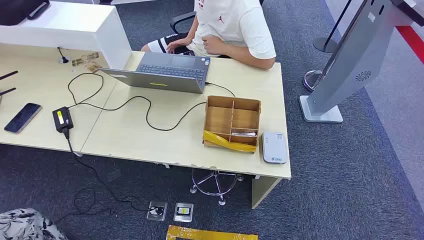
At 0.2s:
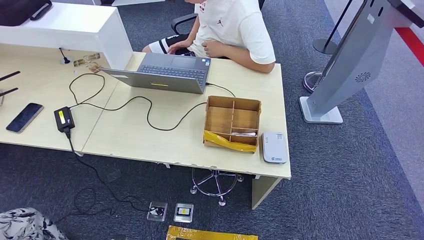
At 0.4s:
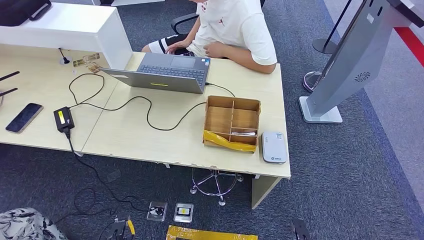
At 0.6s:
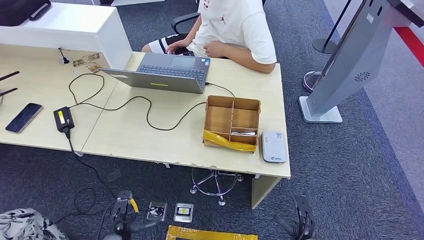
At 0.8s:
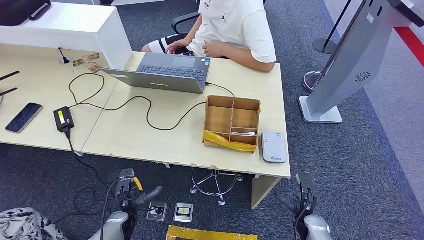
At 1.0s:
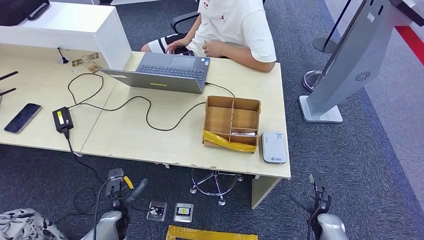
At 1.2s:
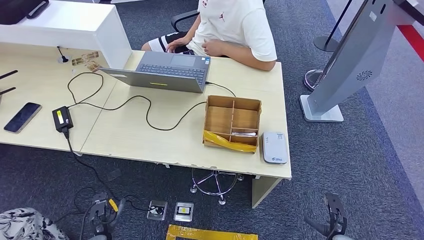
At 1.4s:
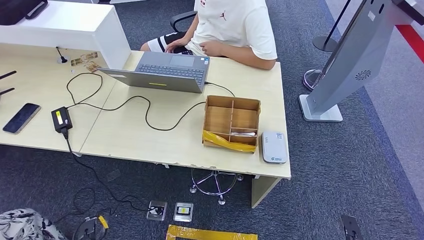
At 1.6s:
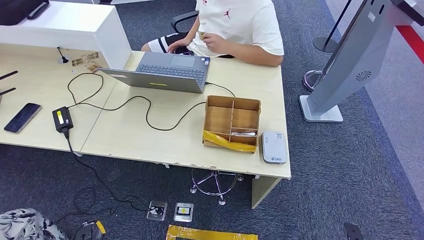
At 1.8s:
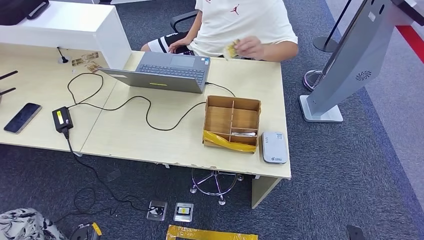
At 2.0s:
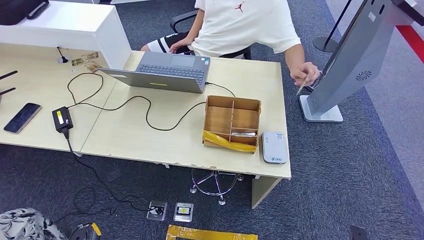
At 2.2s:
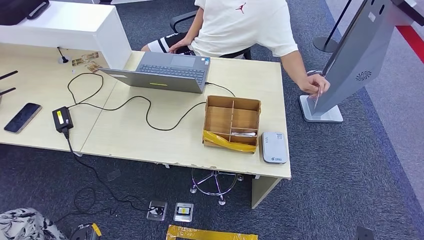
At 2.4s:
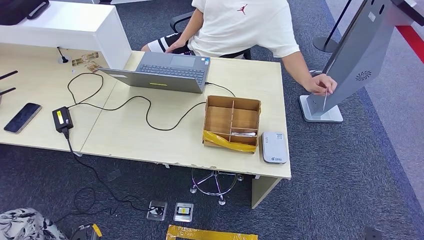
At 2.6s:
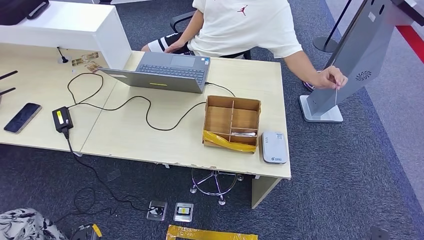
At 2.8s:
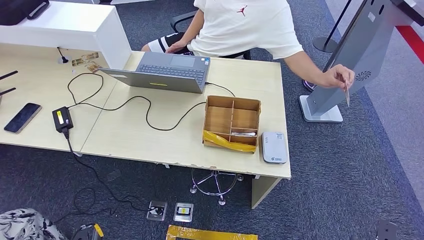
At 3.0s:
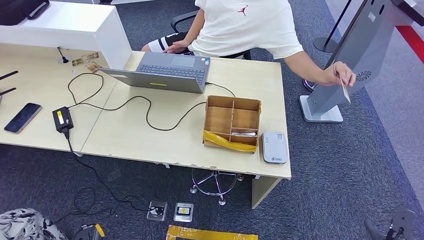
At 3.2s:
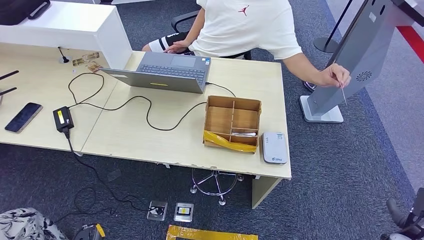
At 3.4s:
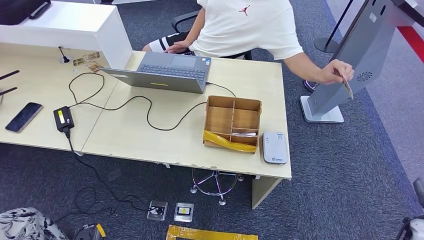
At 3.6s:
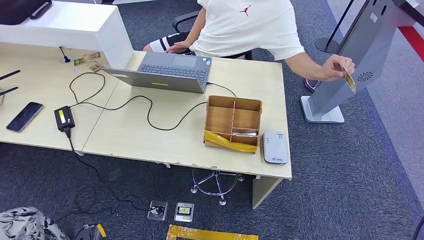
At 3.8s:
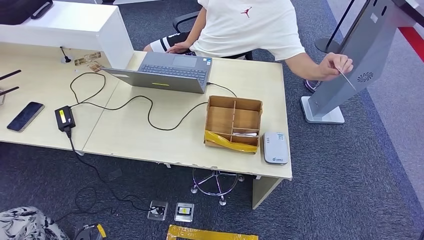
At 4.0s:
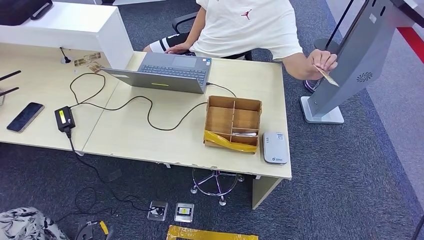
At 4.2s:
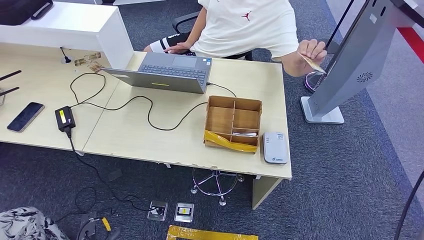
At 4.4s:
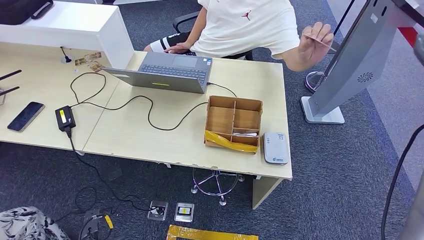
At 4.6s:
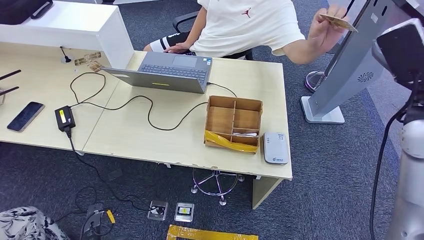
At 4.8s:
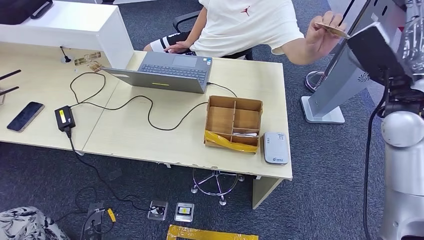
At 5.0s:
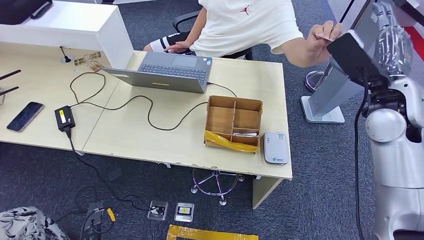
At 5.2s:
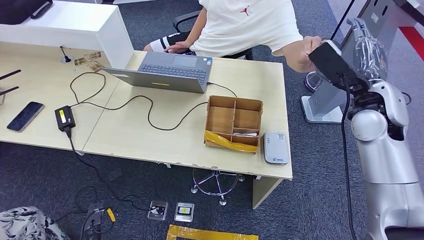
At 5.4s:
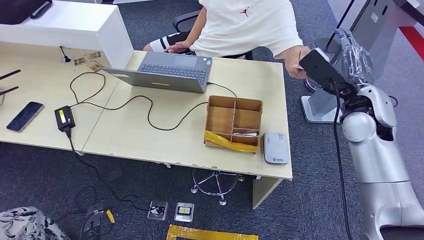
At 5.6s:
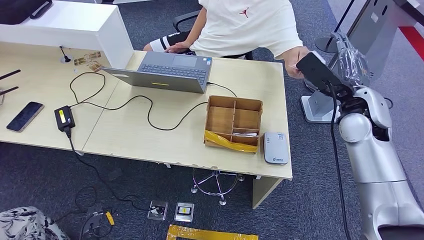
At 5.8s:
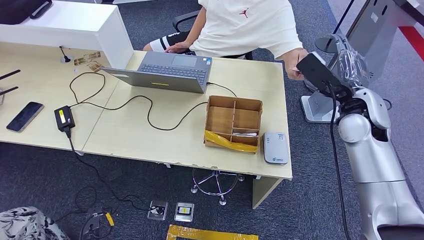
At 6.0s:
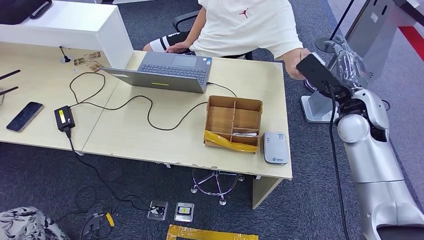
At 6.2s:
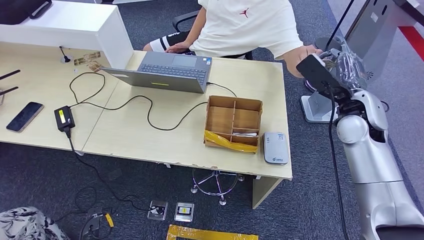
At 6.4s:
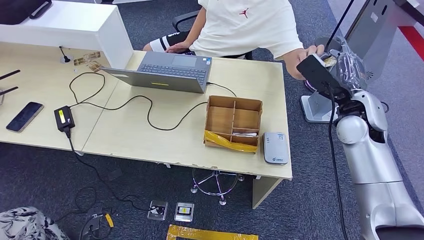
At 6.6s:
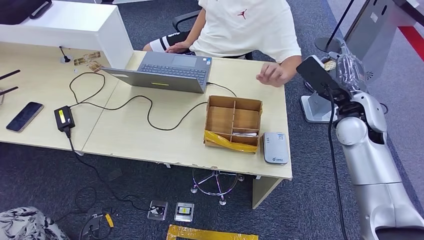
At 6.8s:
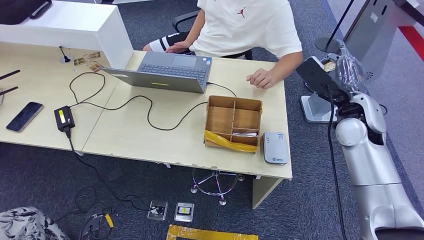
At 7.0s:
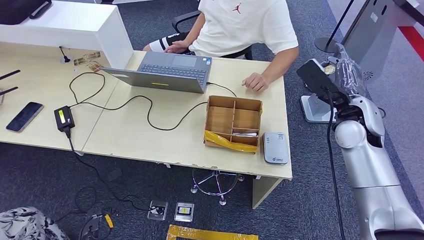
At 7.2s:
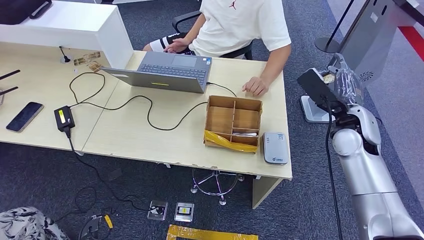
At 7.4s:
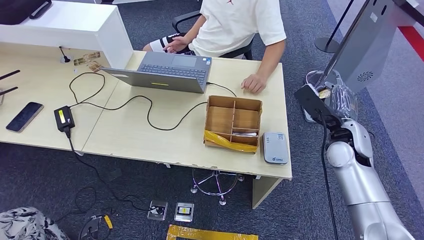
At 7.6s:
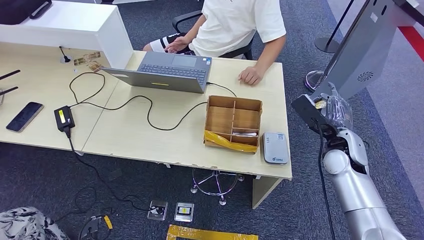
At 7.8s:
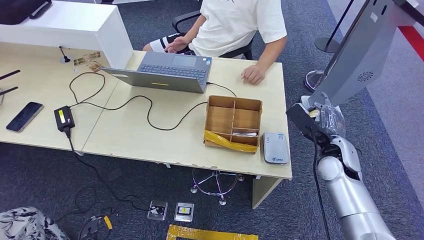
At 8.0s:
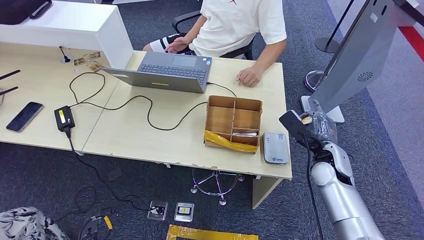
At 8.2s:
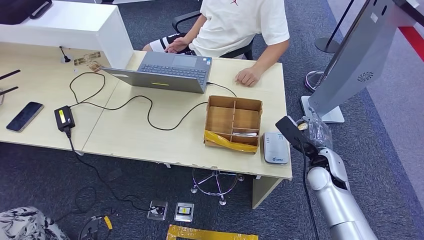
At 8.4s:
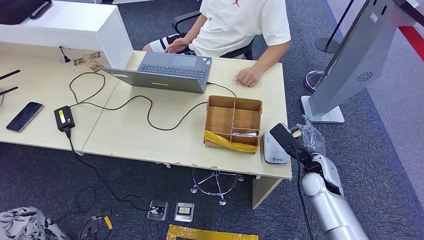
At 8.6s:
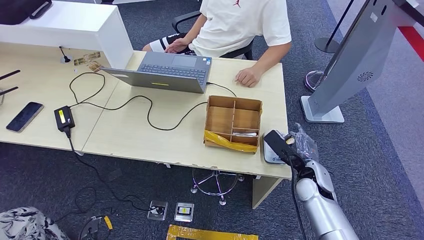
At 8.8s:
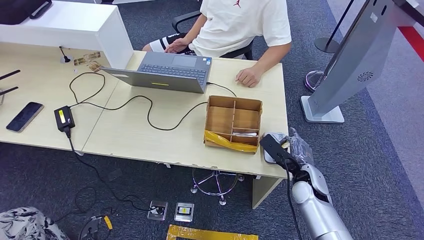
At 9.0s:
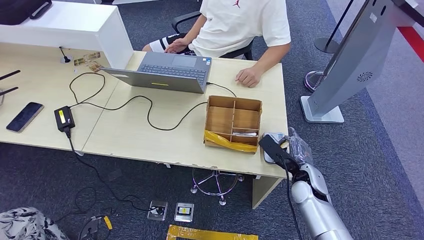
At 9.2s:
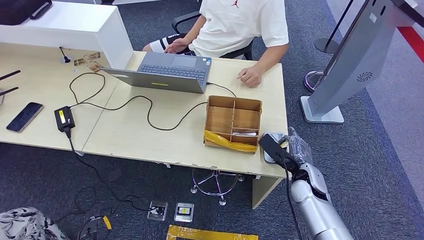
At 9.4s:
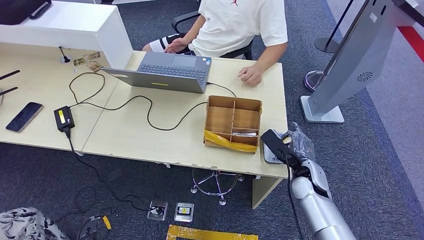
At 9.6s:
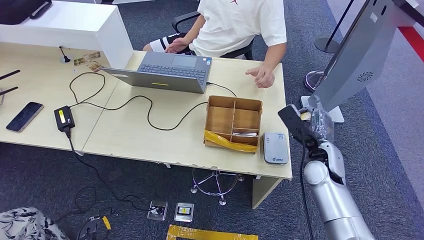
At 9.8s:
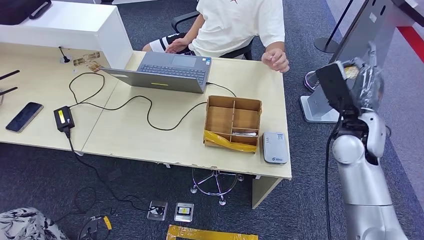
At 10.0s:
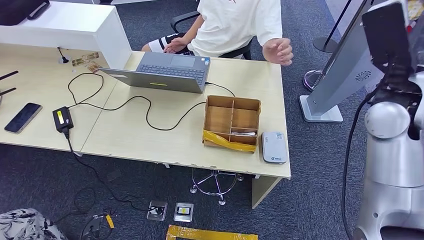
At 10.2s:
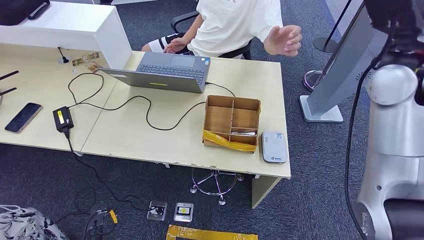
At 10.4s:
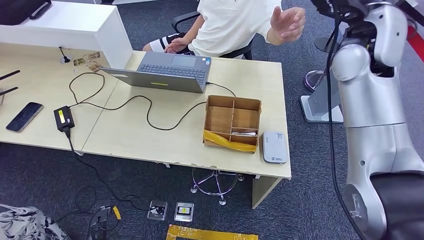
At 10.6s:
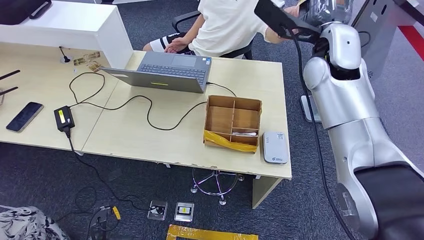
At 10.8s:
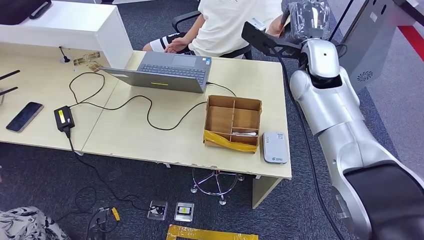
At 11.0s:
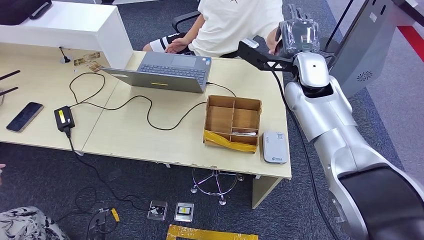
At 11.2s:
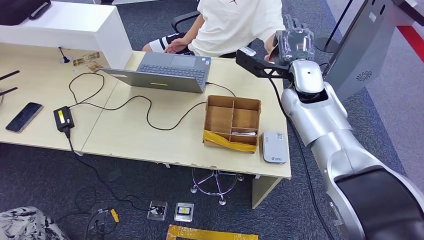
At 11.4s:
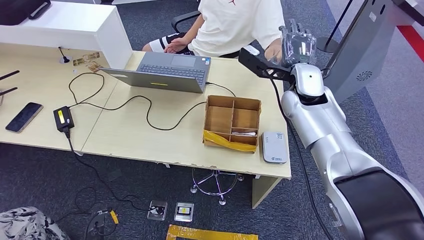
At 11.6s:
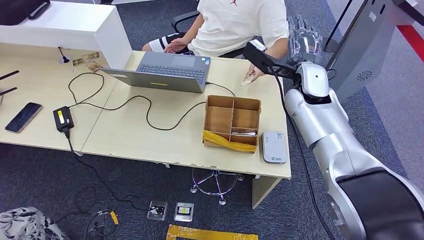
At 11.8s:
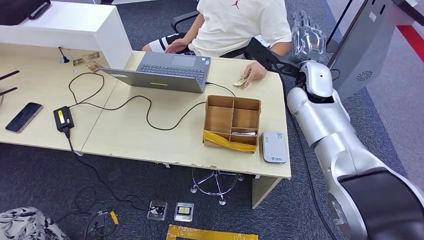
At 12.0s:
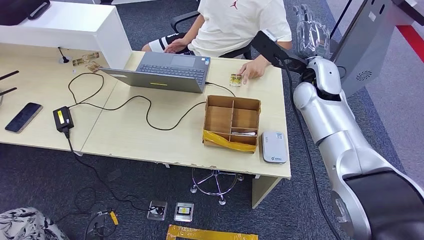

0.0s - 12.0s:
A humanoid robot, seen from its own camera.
Step, 0.0s - 7.6s: Take the ID card from the person's hand.
Step, 8.0s - 10.2s: Place the ID card on the card reader.
1.6s - 3.0s: The right hand changes place by about 5 cm.
3.0s - 4.4s: The right hand goes some 50 cm upward and forward.
4.4s - 6.0s: The right hand shifts approximately 15 cm downward, forward and to the left.
6.0s - 7.6s: The right hand shifts about 10 cm downward.
7.6s - 9.0s: The right hand travels downward, backward and to the left by some 15 cm.

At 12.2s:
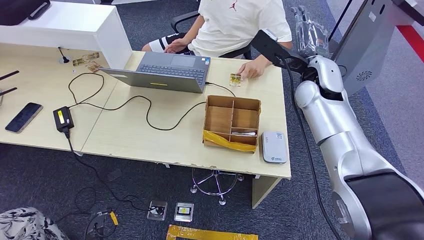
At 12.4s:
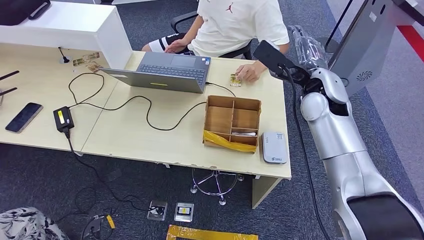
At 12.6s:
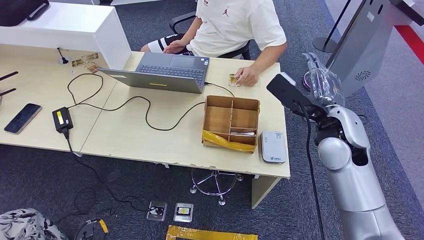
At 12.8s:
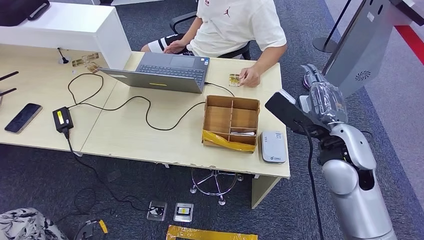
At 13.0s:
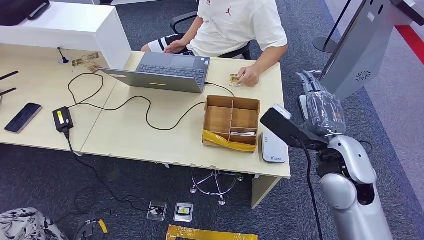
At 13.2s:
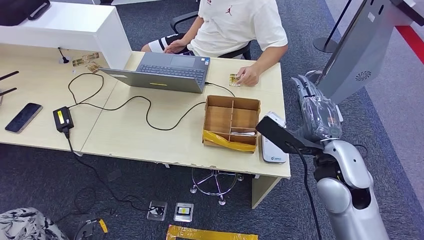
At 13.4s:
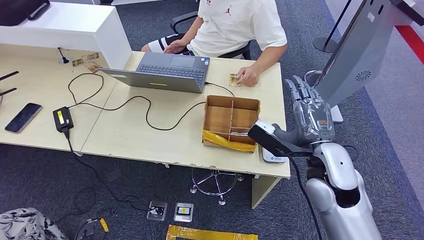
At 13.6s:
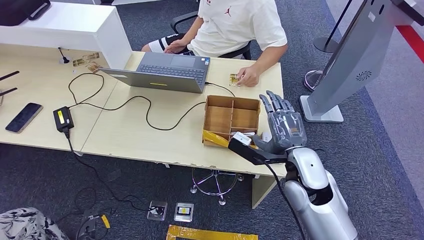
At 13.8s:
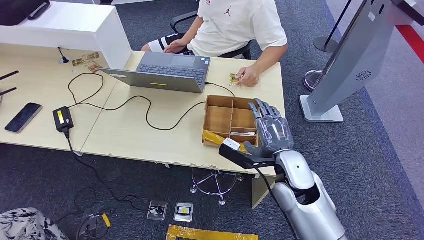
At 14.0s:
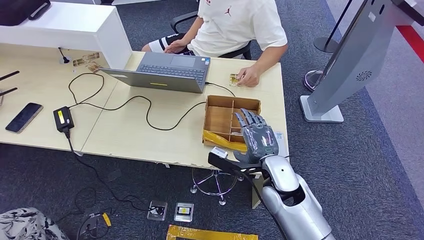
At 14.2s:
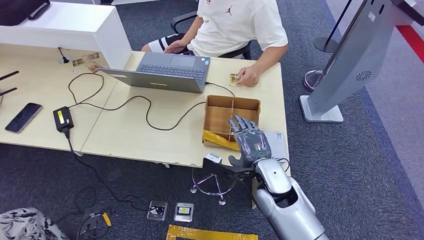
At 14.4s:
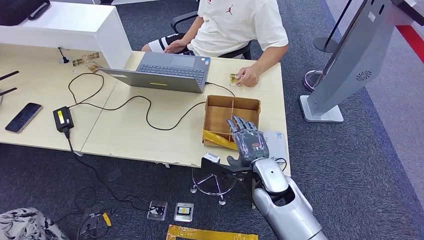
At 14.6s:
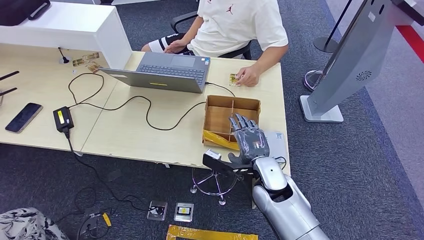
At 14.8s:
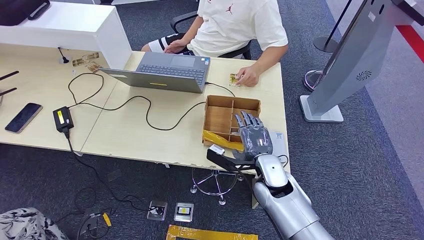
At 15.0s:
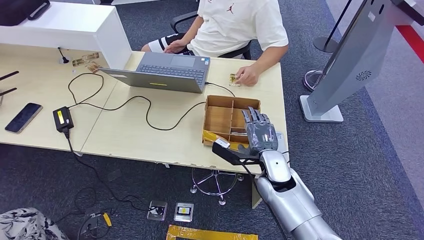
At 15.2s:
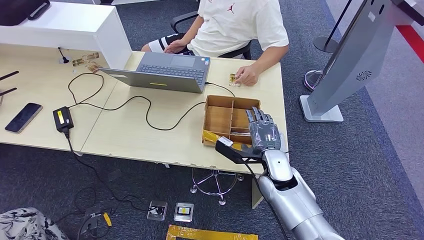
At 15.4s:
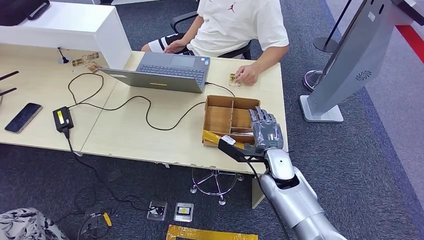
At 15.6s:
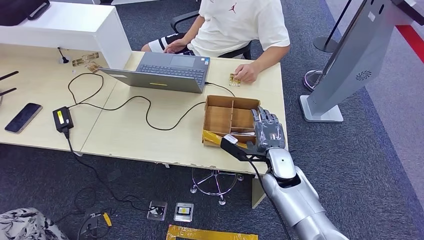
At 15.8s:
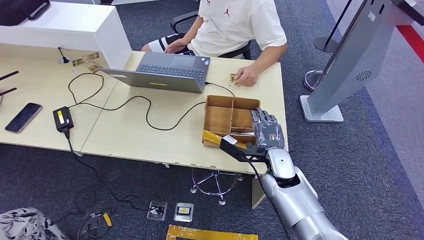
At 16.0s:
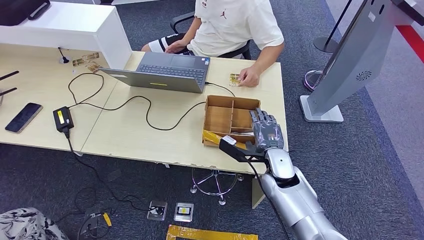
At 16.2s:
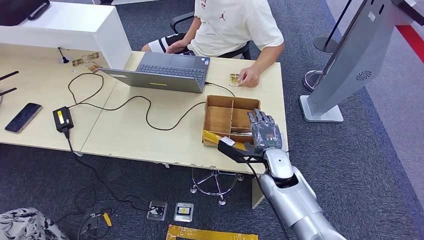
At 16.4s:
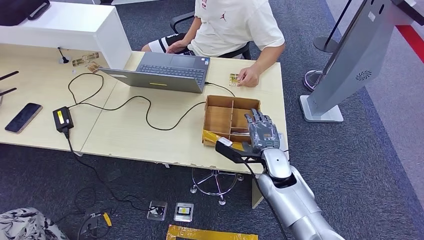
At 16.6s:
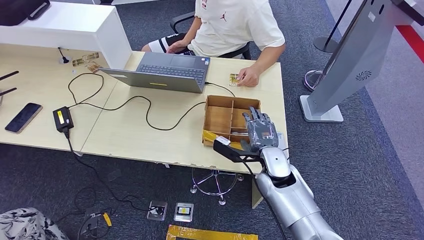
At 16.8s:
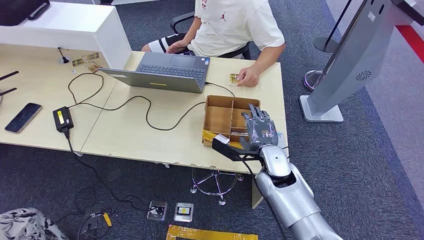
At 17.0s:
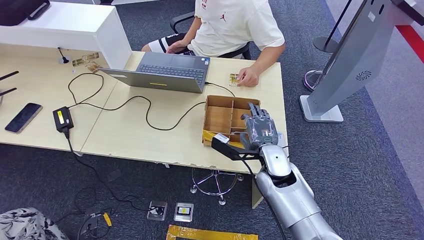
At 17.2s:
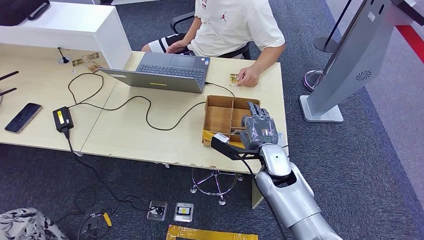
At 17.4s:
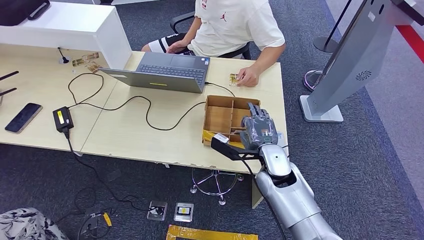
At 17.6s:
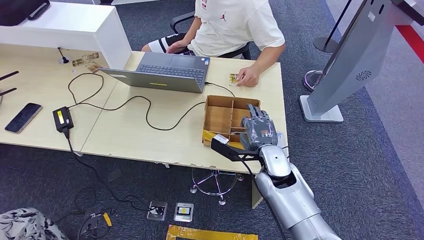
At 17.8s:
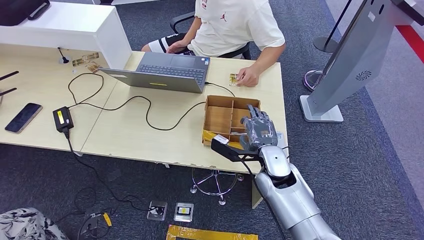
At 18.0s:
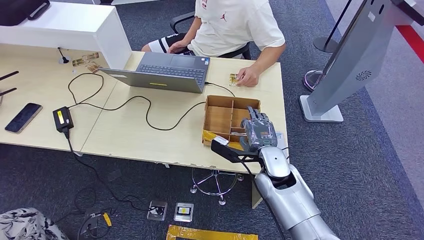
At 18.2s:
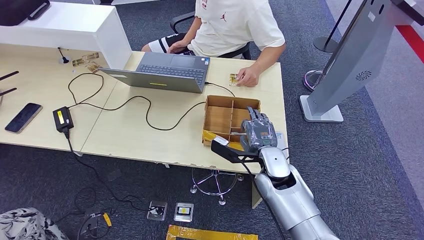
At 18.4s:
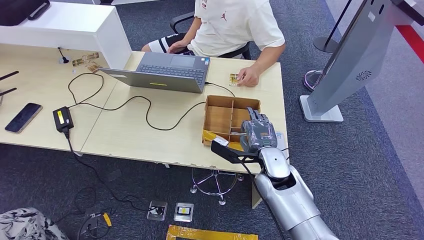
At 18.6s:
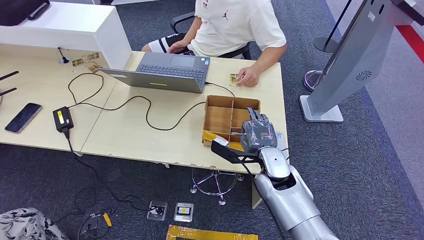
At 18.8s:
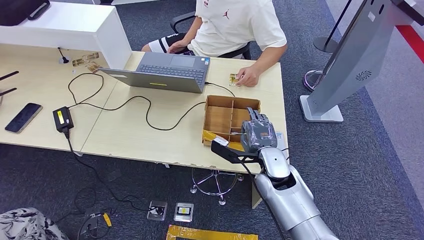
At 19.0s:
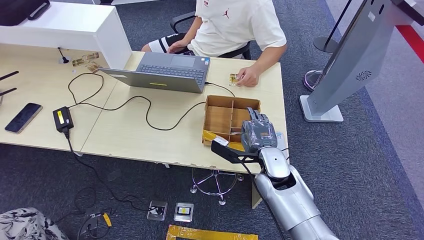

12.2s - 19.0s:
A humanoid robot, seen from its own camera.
13.6s - 15.0s: The right hand shifts roughly 10 cm downward.
15.0s - 17.6s: The hands stay close to where they were, moving slightly.
17.6s - 19.0s: Both hands stay about where they are.
